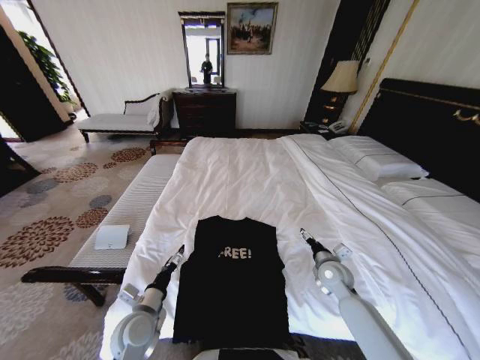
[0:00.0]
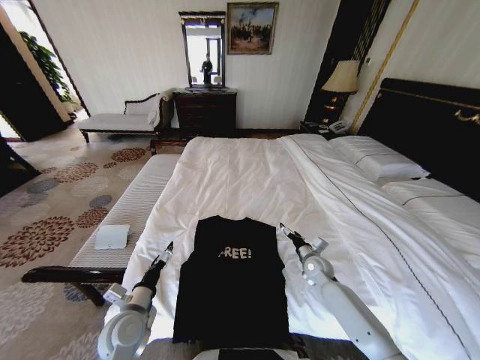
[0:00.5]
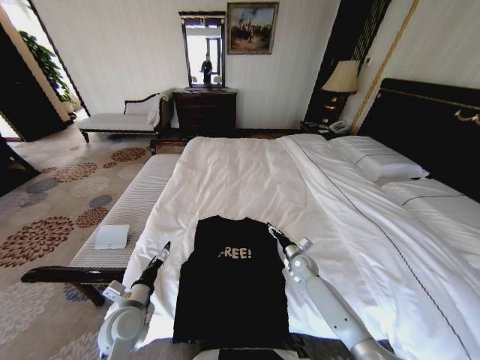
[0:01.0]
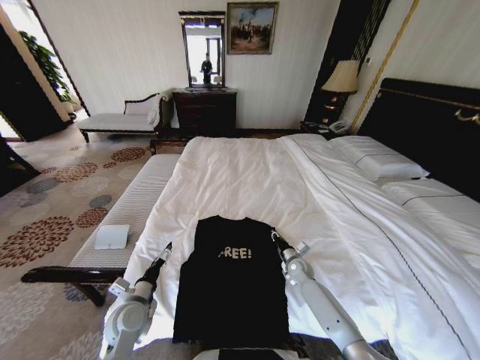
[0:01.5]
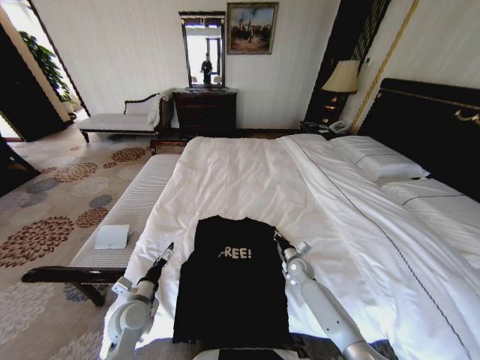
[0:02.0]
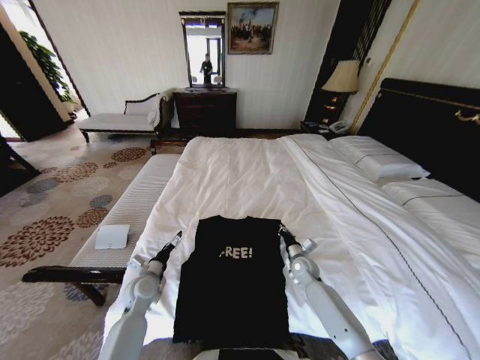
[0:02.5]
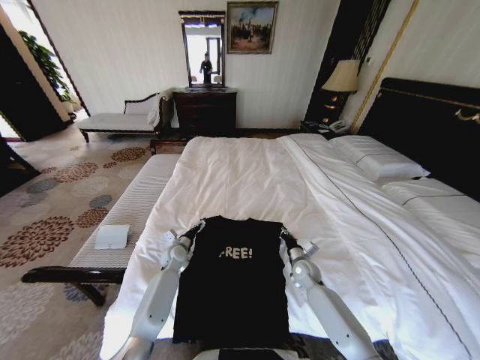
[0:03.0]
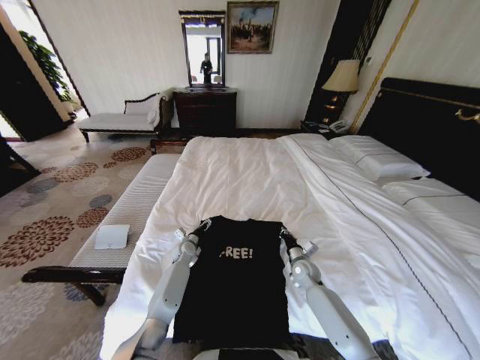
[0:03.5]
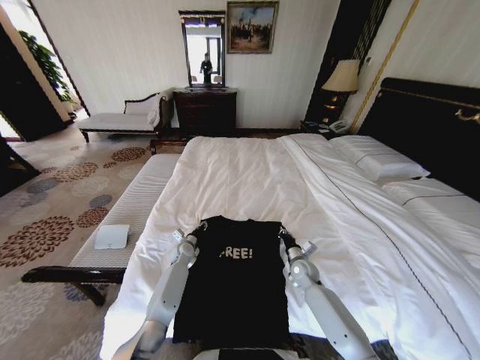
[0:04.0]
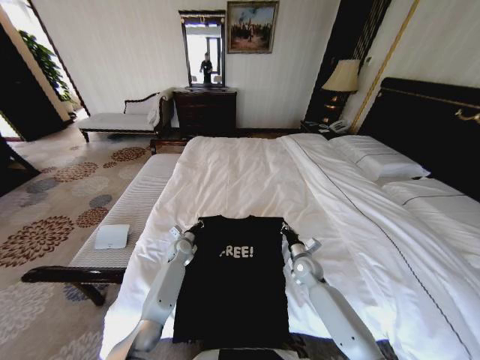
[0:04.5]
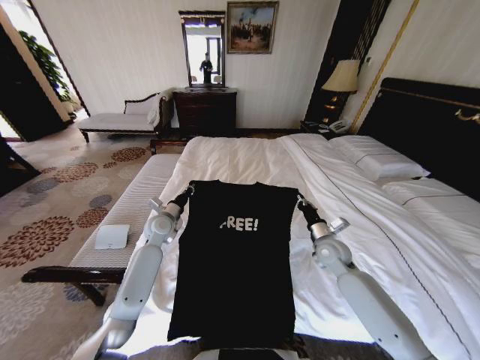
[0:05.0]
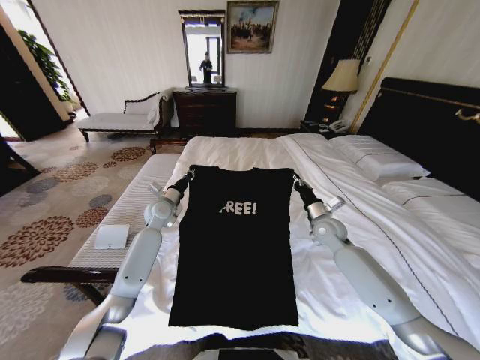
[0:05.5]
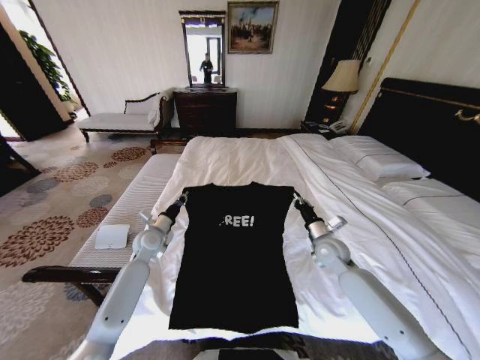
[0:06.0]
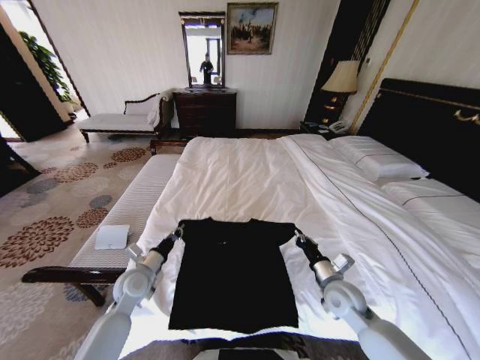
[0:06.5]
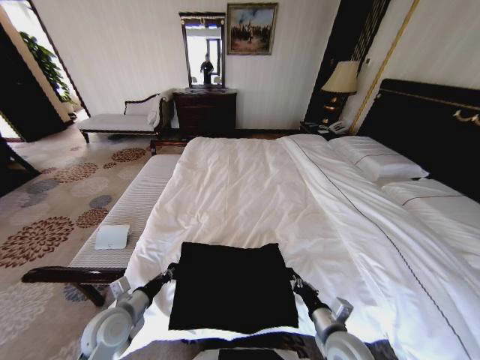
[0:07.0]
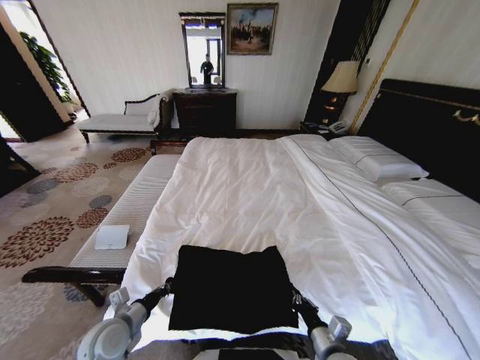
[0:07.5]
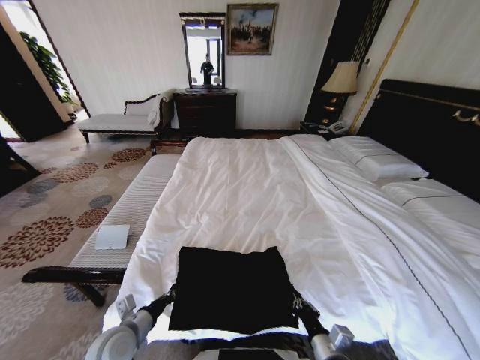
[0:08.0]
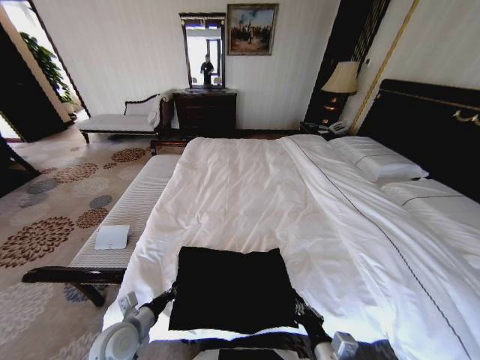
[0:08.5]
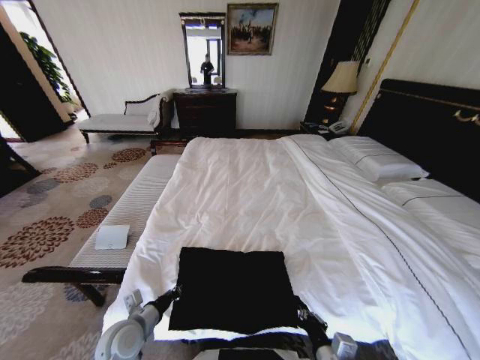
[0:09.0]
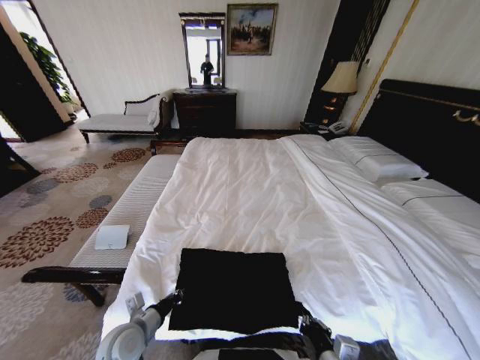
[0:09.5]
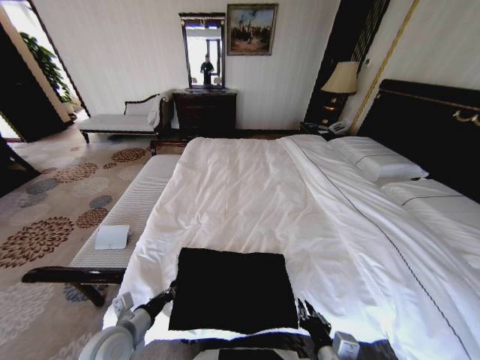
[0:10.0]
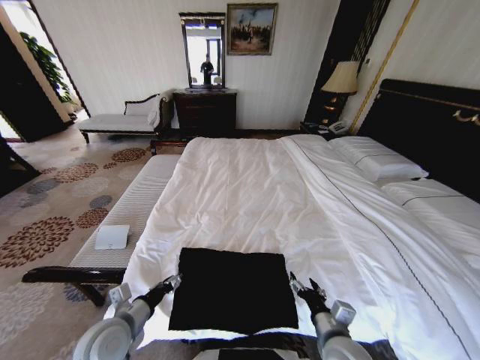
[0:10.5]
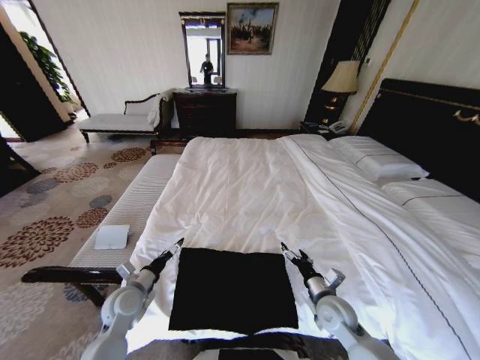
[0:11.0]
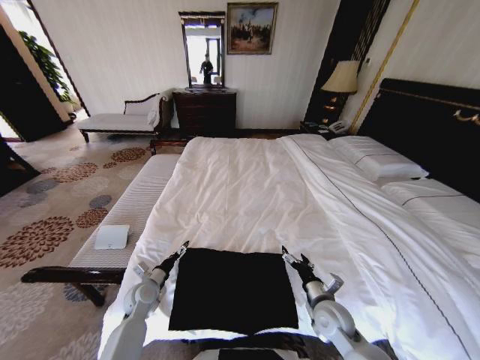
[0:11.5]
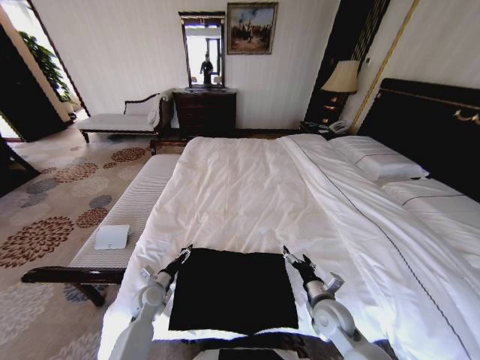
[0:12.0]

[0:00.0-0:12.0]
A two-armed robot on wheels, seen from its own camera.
Task of the whole recording: Fold the clothes on the bed.
0:00.0 to 0:02.0: The right gripper heads downward and forward, covering about 15 cm, and closes its fingers.
0:02.0 to 0:04.0: The left gripper heads forward, covering roughly 25 cm, and closes up.
0:04.0 to 0:06.0: The right gripper moves upward, approximately 15 cm, while the left gripper heads upward and to the left, covering roughly 15 cm, and closes.
0:06.0 to 0:08.0: Both grippers travel together backward, roughly 30 cm.
0:08.0 to 0:10.0: The right gripper shifts by some 5 cm.
0:10.0 to 0:12.0: The left gripper is displaced forward and downward by about 20 cm, and opens up, while the right gripper travels forward by roughly 15 cm, and opens up.

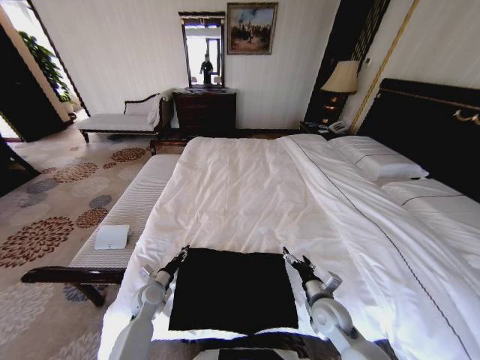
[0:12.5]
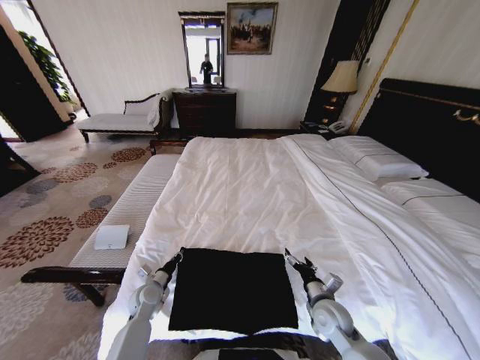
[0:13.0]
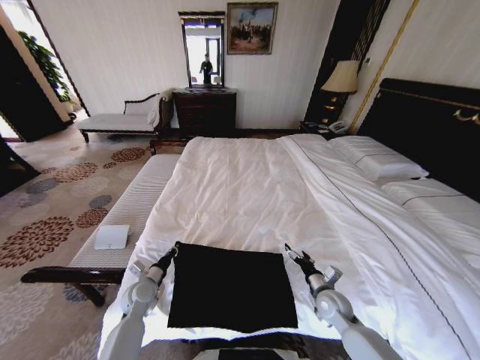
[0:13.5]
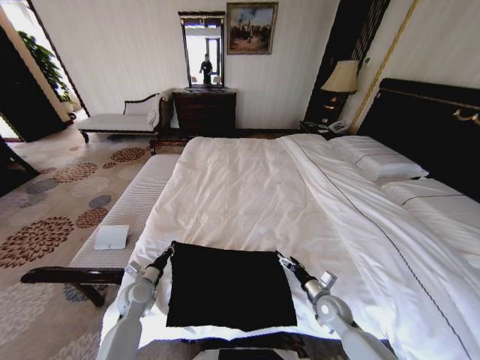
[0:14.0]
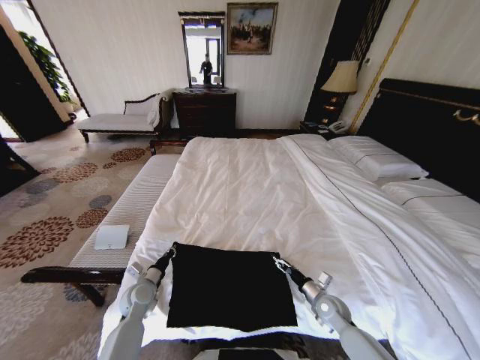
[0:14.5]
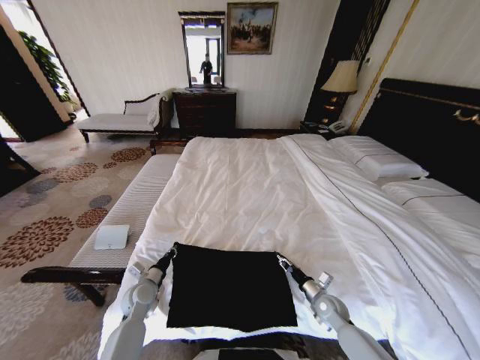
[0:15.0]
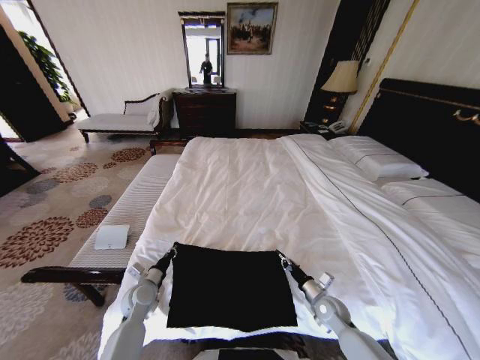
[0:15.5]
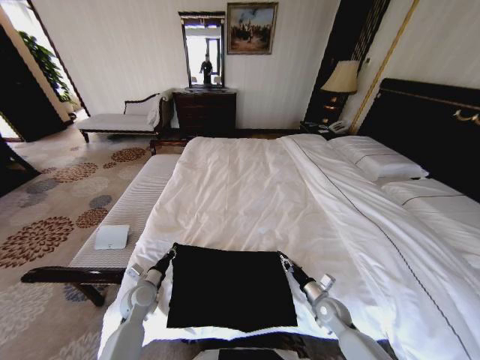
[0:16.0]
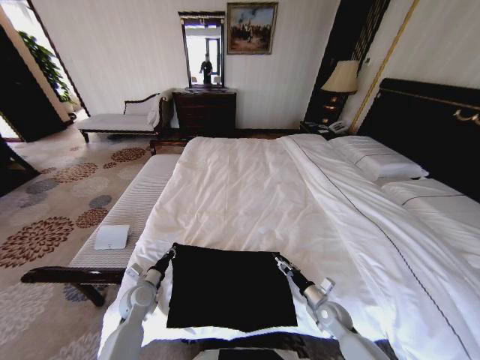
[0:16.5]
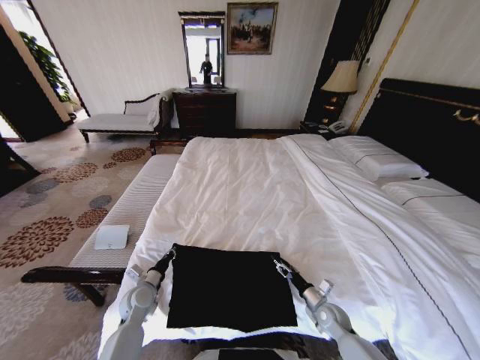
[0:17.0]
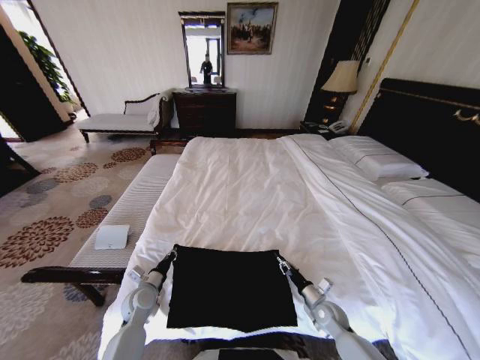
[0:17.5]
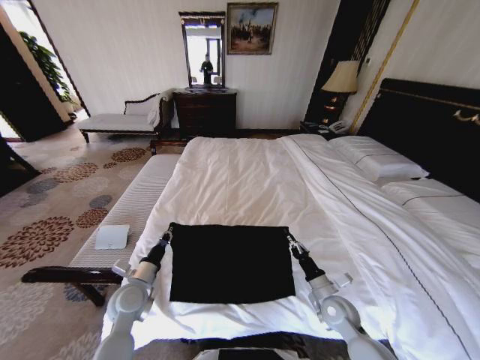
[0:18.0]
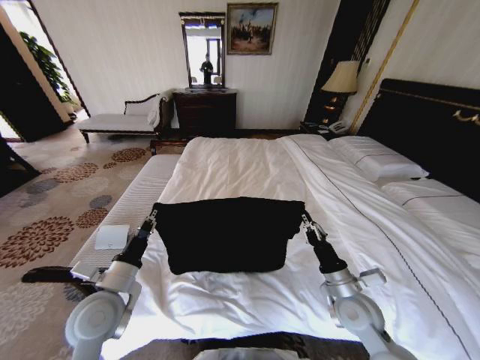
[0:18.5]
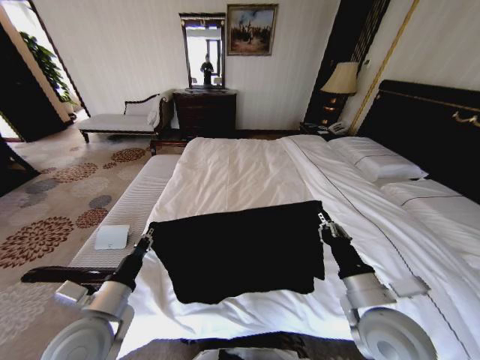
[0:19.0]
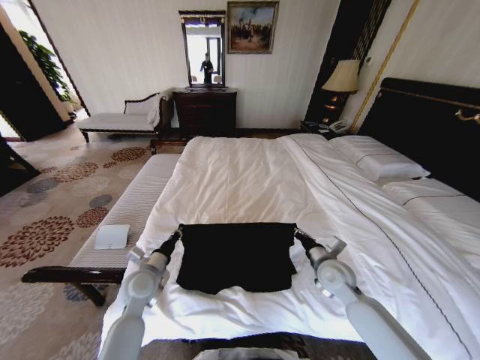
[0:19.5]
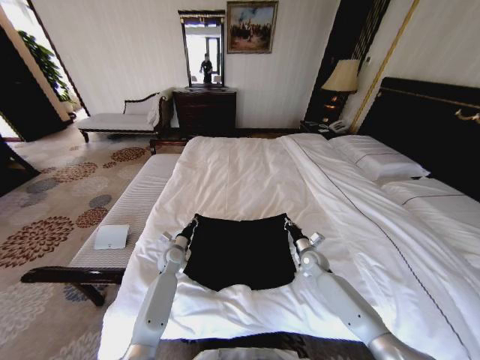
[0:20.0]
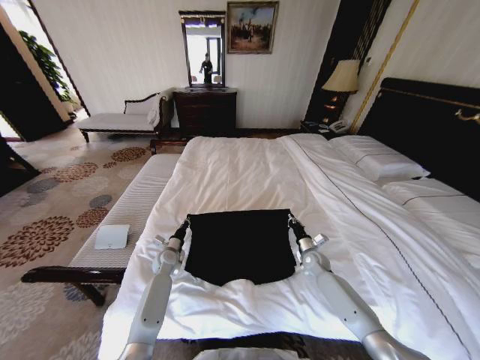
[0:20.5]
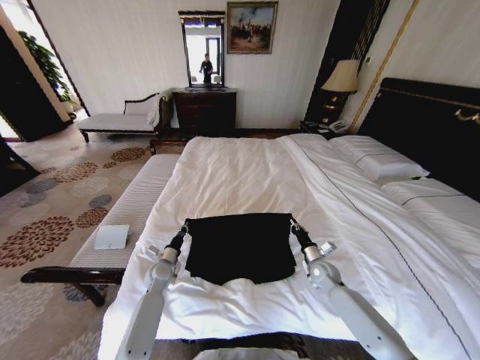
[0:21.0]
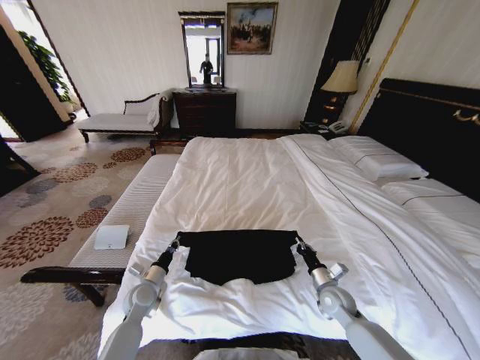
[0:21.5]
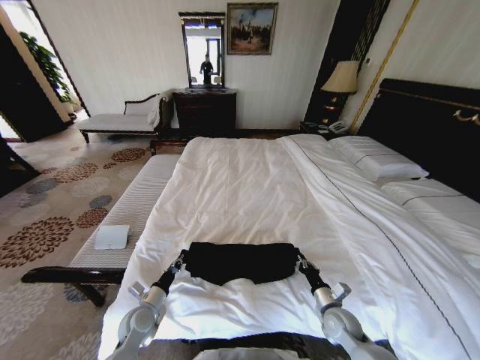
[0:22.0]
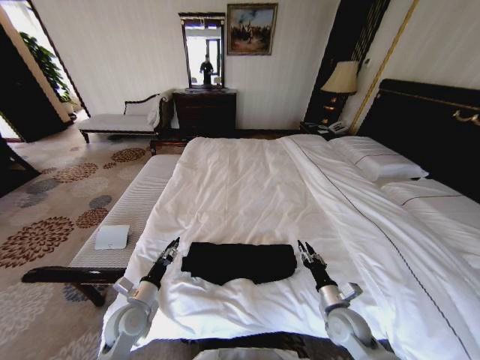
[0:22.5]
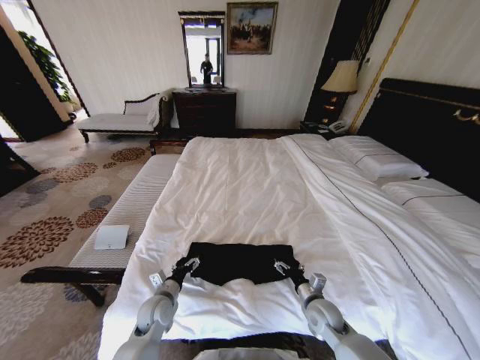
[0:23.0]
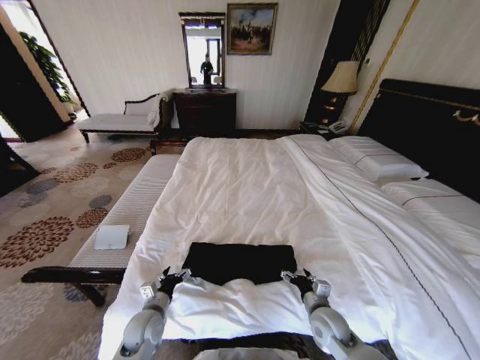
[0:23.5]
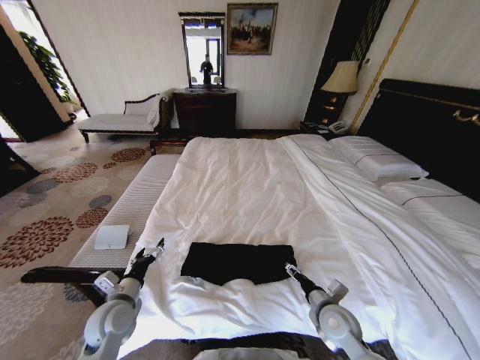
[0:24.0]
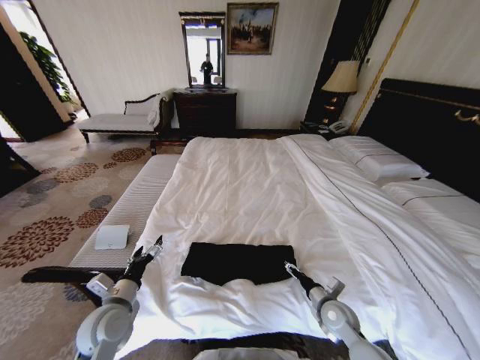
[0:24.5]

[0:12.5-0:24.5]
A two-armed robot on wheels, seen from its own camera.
Task of the whole recording: Fold the clothes on the bed.
0:12.5 to 0:14.5: The left gripper closes; the right gripper moves downward and to the right, approximately 10 cm.
0:14.5 to 0:16.5: The right gripper closes up.
0:16.5 to 0:18.5: The left gripper shifts approximately 20 cm upward and backward, while the right gripper moves upward, about 20 cm, and closes up.
0:18.5 to 0:20.5: Both grippers travel together forward and downward, some 25 cm.
0:20.5 to 0:22.5: Both grippers move backward, approximately 20 cm. The right gripper opens. Meanwhile the left gripper opens its fingers.
0:22.5 to 0:24.5: The right gripper opens. The left gripper is displaced upward by approximately 5 cm, and opens up.

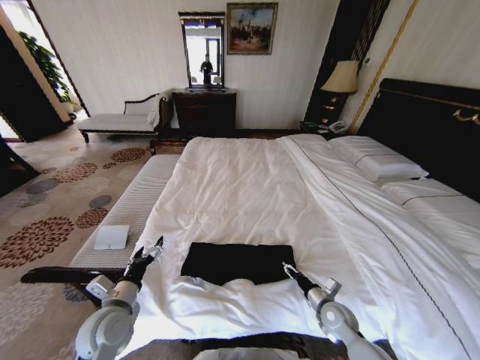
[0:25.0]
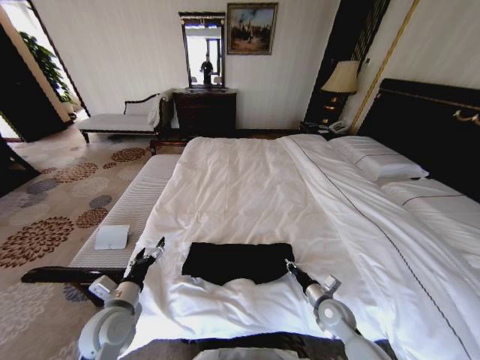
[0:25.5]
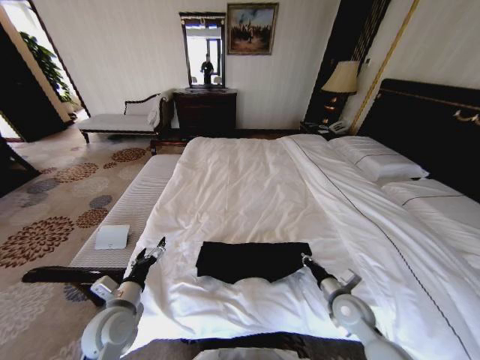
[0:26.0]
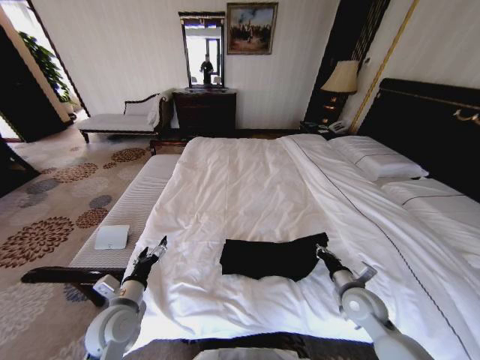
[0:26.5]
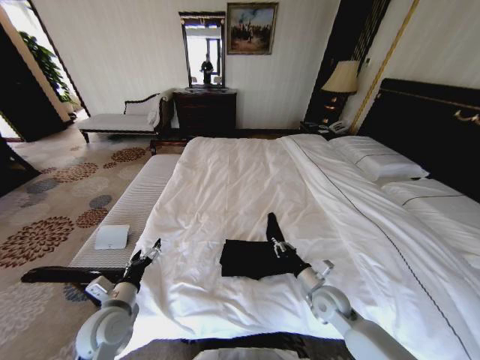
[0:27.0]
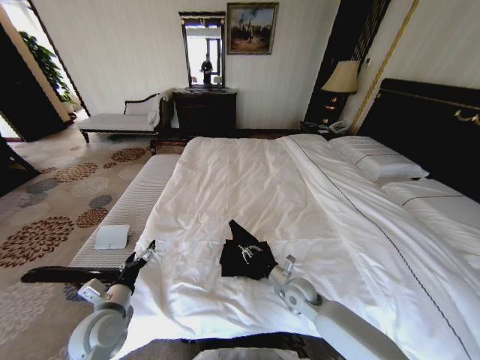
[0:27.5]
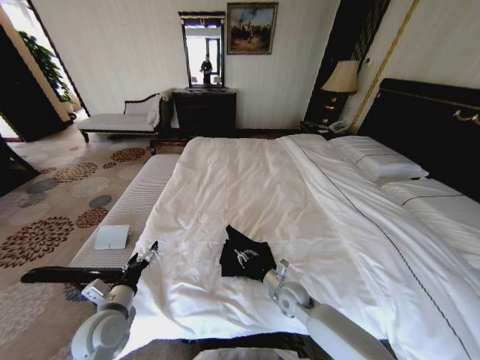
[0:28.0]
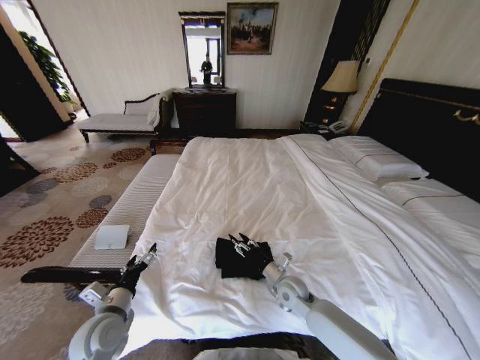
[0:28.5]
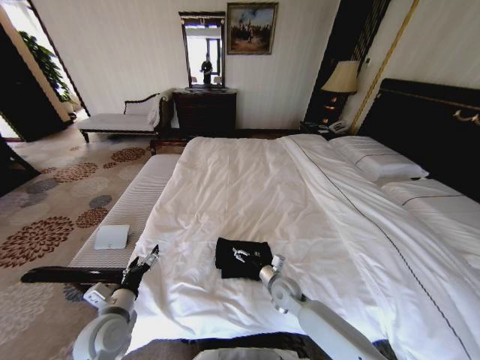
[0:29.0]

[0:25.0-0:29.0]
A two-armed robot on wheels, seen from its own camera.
Task of the whole recording: Fold the clothes on the bed.
0:25.0 to 0:27.0: The right gripper moves upward, approximately 5 cm, and closes its fingers.
0:27.0 to 0:29.0: The right gripper travels to the left by some 10 cm, and opens its fingers.
